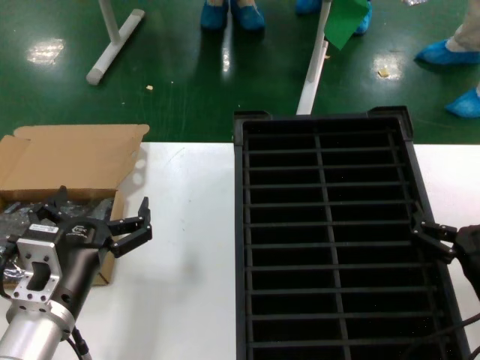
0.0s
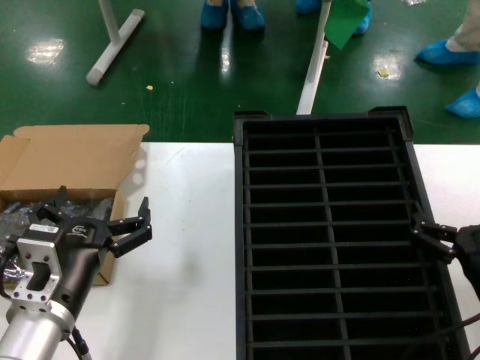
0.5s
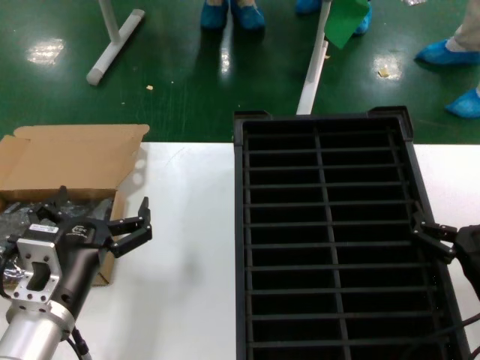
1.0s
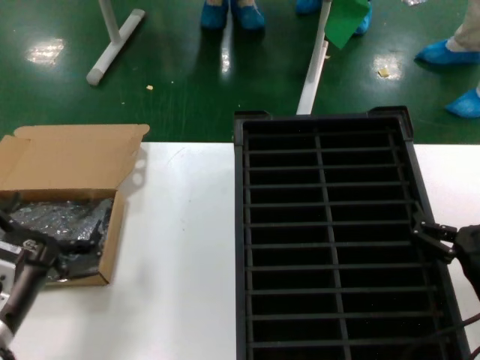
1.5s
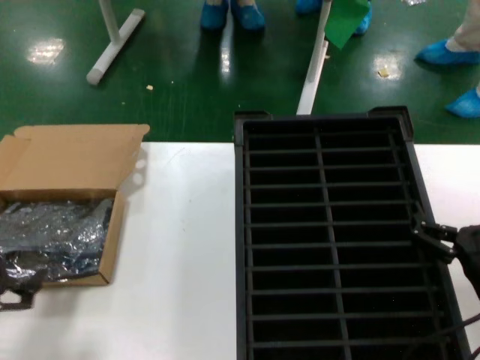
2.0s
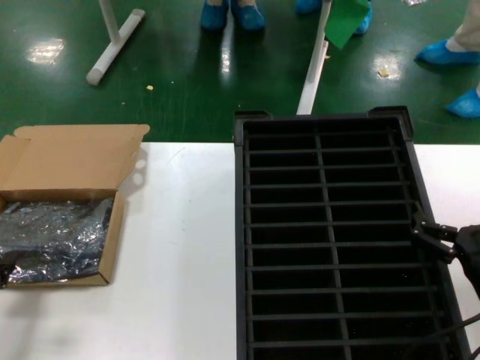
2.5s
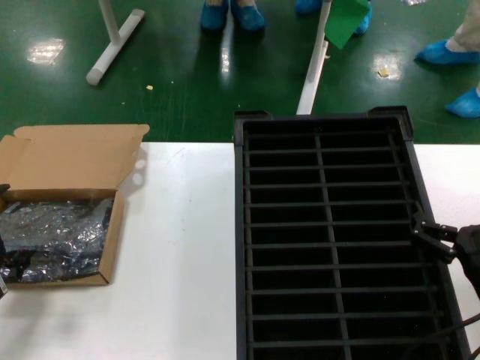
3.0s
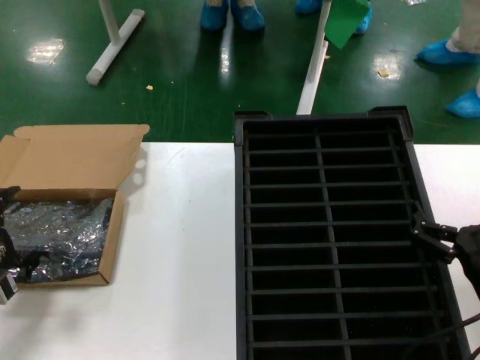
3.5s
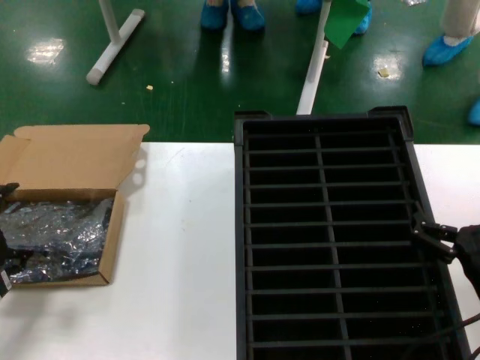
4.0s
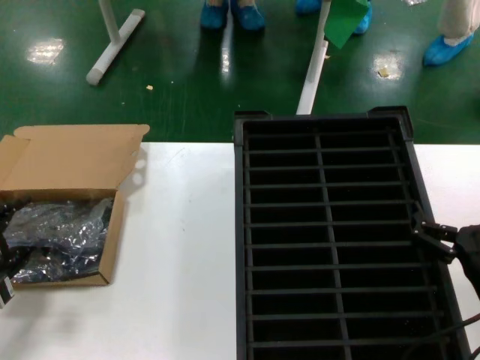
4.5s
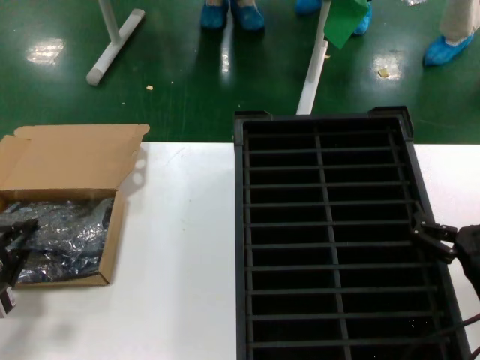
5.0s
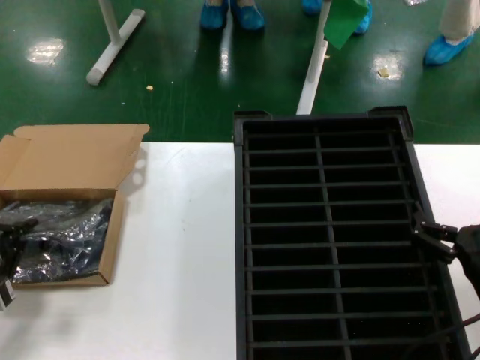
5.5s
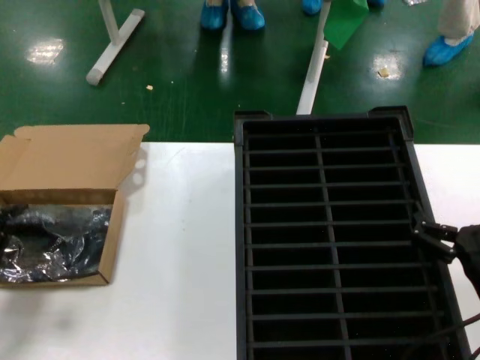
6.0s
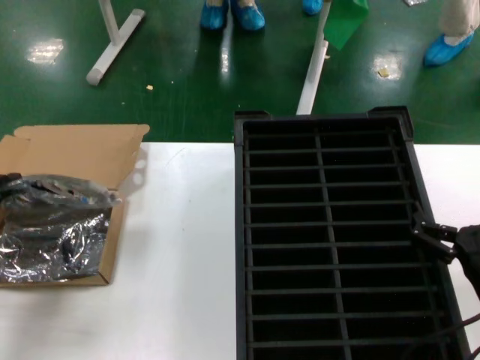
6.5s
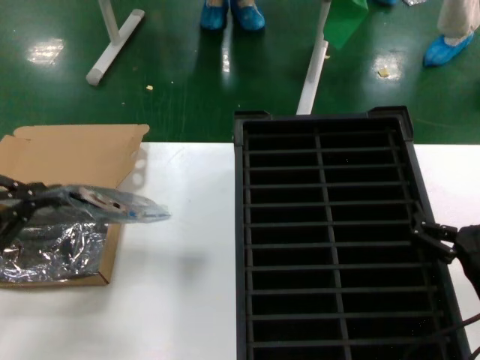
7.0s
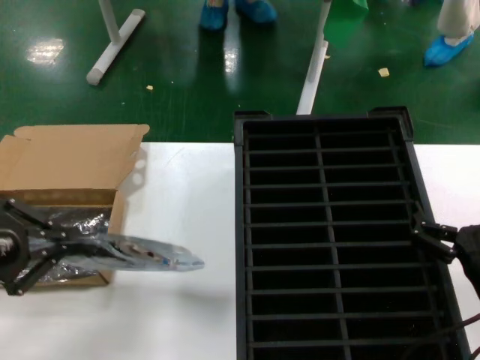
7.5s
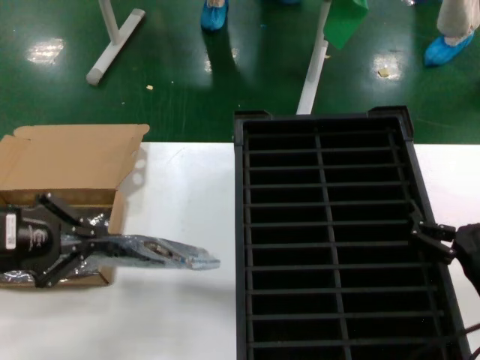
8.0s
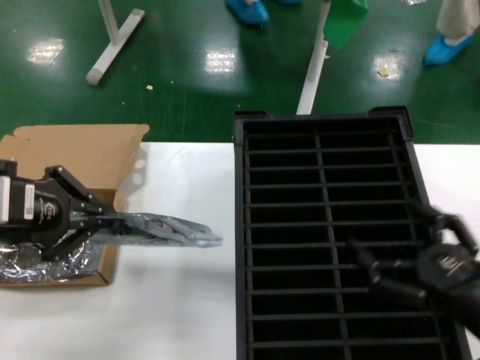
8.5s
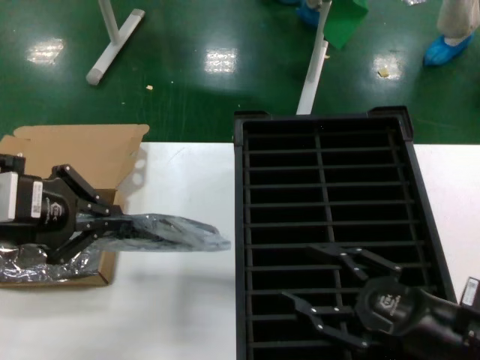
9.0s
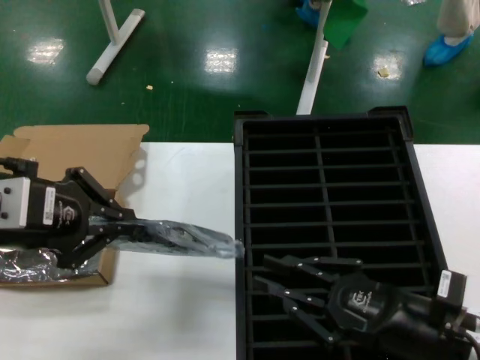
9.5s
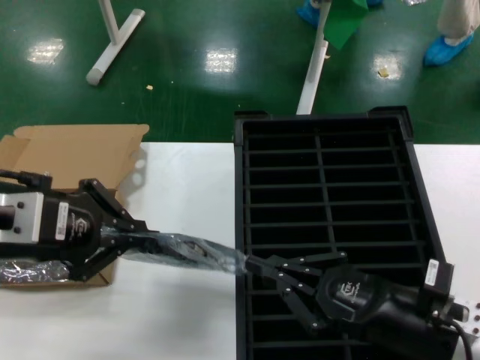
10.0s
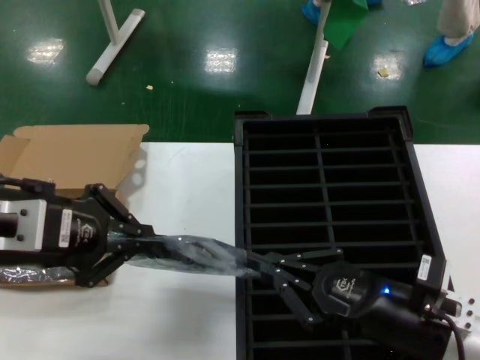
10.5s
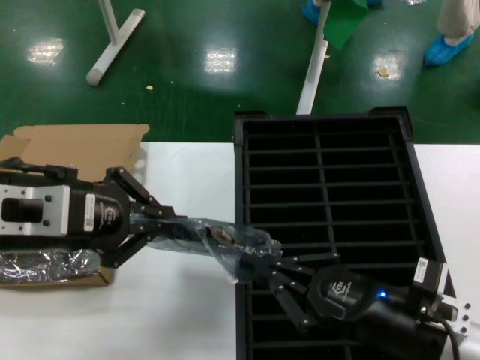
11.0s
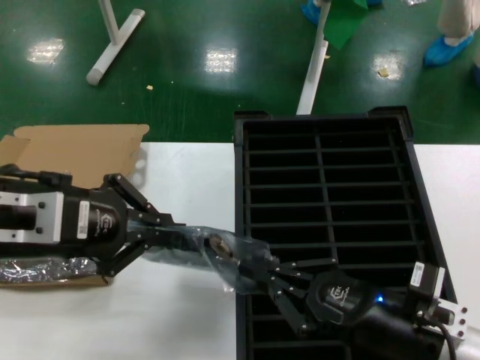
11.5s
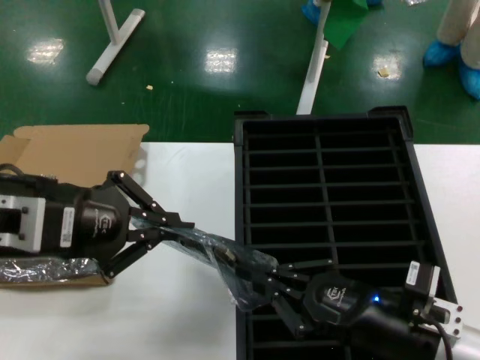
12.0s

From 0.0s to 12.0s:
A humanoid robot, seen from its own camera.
Task of the whole recording: take out graphics card from box remove packaging put into black container.
Step, from 0.0s to 5.0s: Grasp the bag.
Step, from 5.5s to 7.5s: Lift the bag.
From 0.0s to 2.0s: The left hand is displaced to the left by about 15 cm.
From 2.0s to 4.0s: The left hand travels forward by roughly 10 cm.
From 4.0s to 6.0s: The hands move only a little.
From 6.0s to 8.0s: The left hand moves upward and to the right, approximately 25 cm.
From 8.0s to 10.0s: The left hand moves to the right, some 5 cm.
From 10.0s to 12.0s: The hands move only a little.

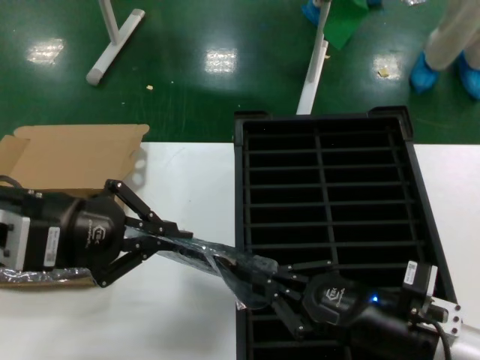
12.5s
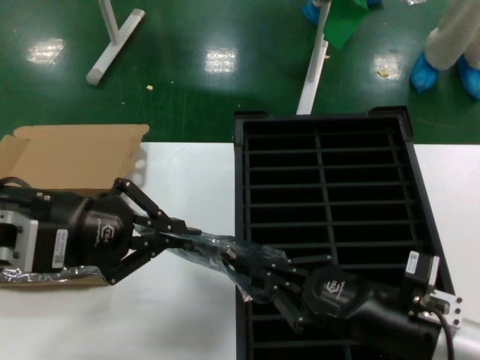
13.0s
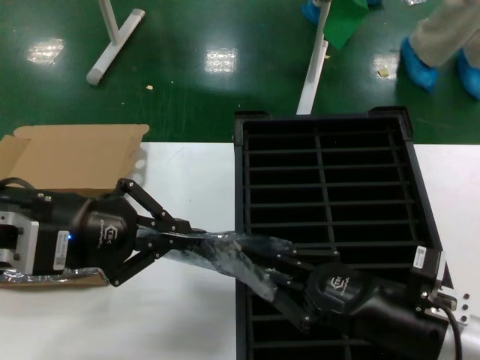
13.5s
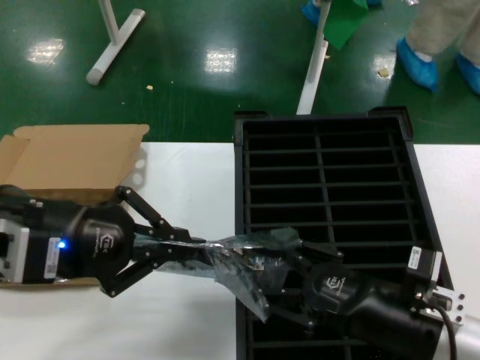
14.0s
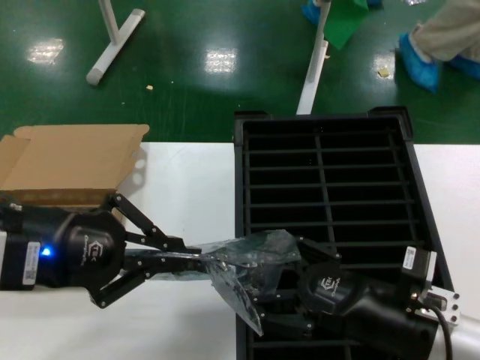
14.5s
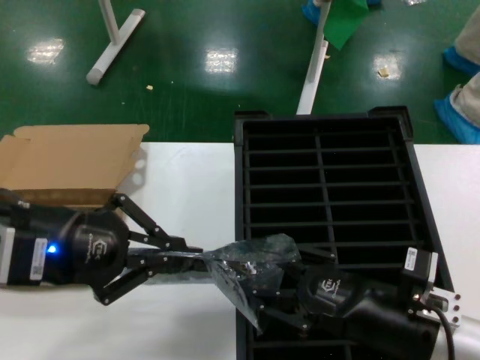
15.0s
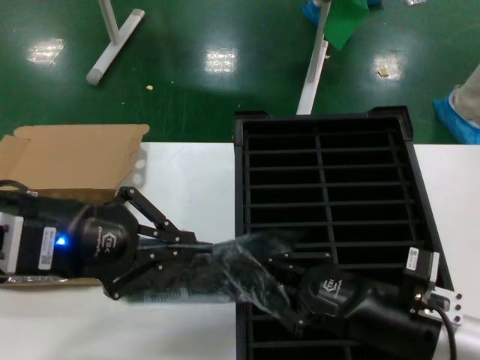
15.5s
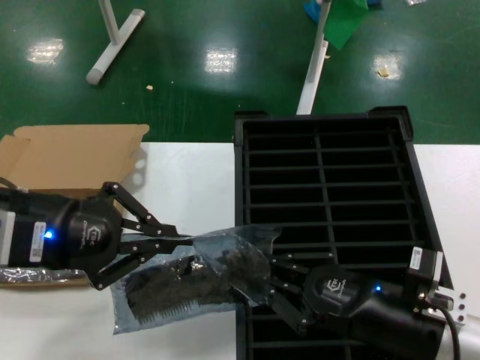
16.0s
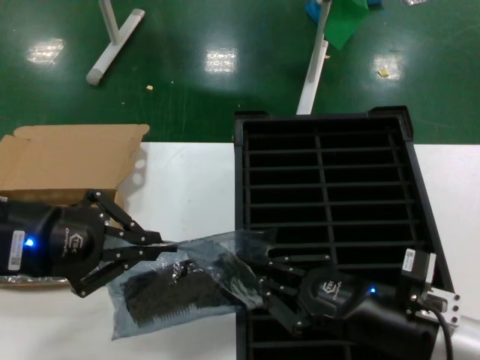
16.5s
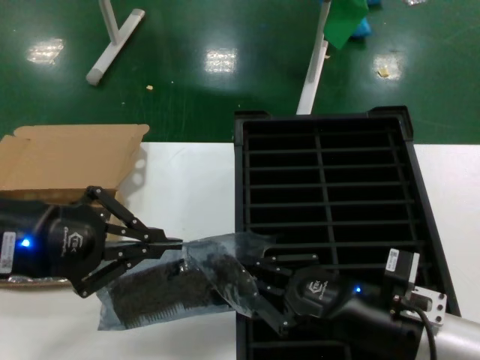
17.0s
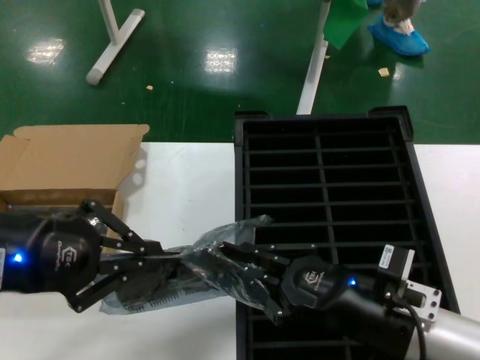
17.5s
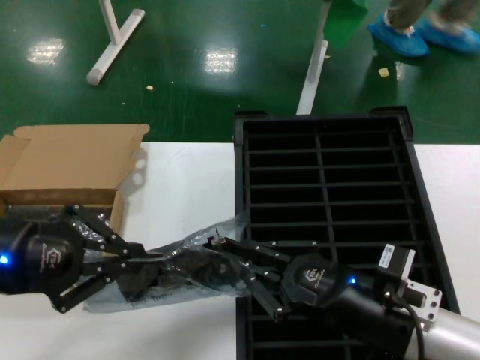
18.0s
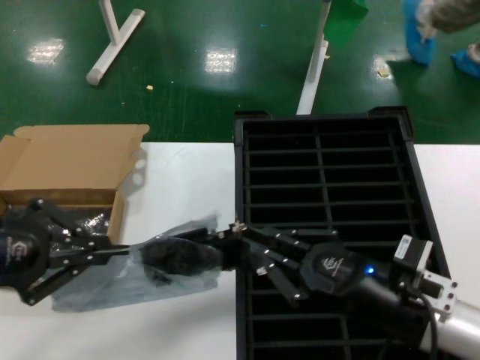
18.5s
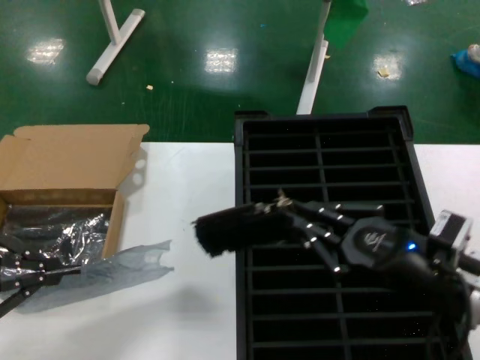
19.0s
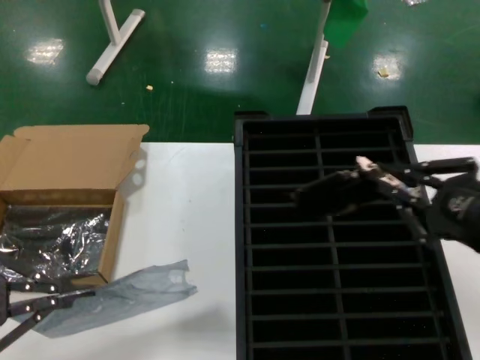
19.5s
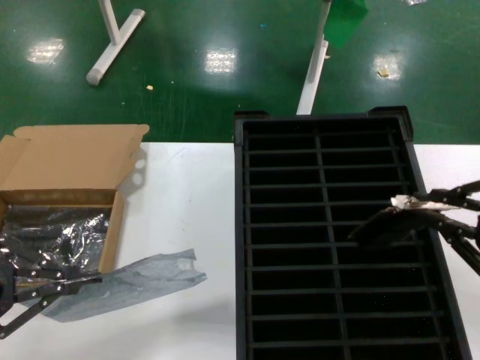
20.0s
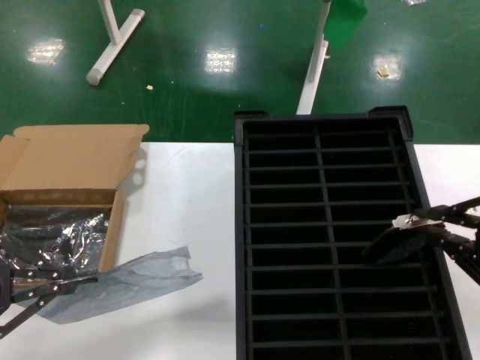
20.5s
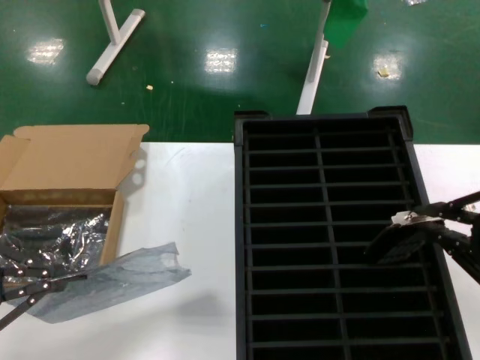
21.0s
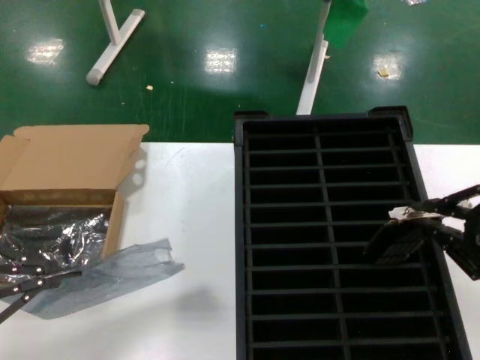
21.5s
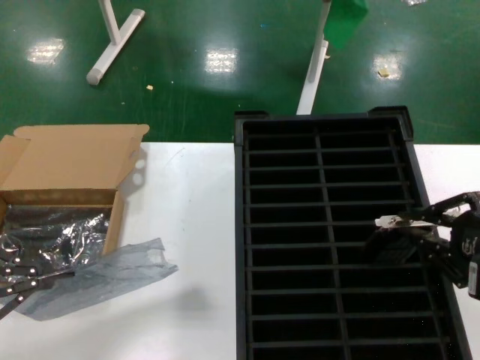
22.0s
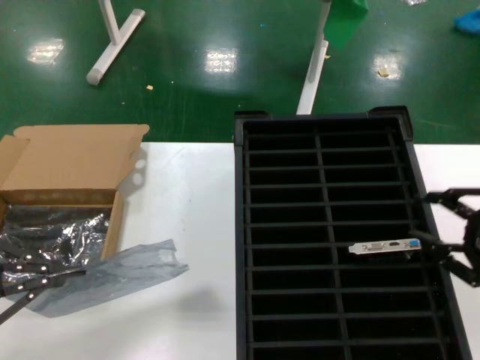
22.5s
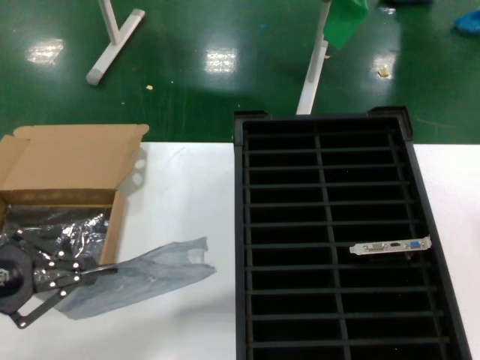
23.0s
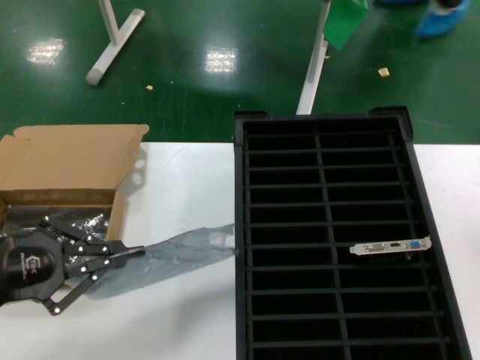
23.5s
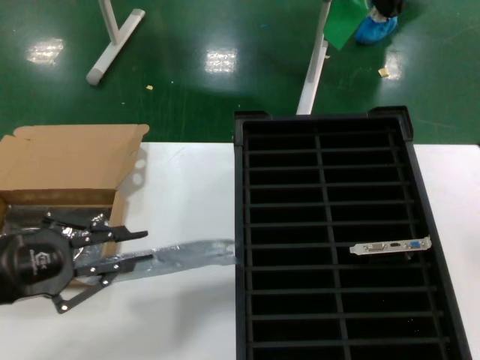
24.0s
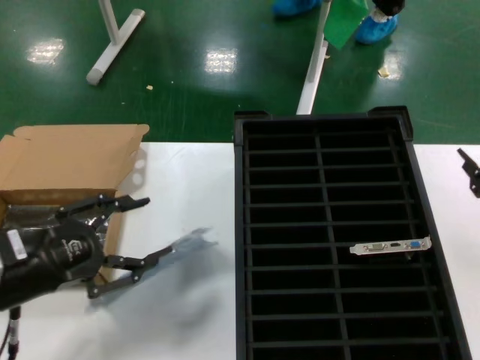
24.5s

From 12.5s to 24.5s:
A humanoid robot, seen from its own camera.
Task of the whole recording: take out graphics card from box remove packaging put into black container.
Step, from 12.5s to 18.5s: Take out the hard disk of the bag.
Step, from 19.0s to 22.5s: Place the hard disk in the hard disk enclosure.
From 12.5s to 16.5s: The hands make only small movements.
From 16.5s to 18.5s: The left hand travels to the left by some 5 cm.
From 18.5s to 20.5s: The right hand is displaced upward, to the right and backward by about 20 cm, while the left hand travels downward and to the left by some 15 cm.
From 20.5s to 22.5s: The hands make only small movements.
From 22.5s to 24.5s: The left hand shifts approximately 15 cm to the right. The right hand moves to the right, about 5 cm.

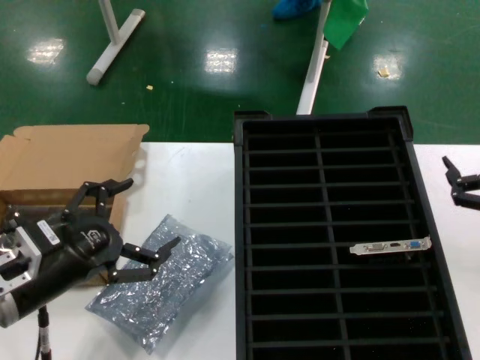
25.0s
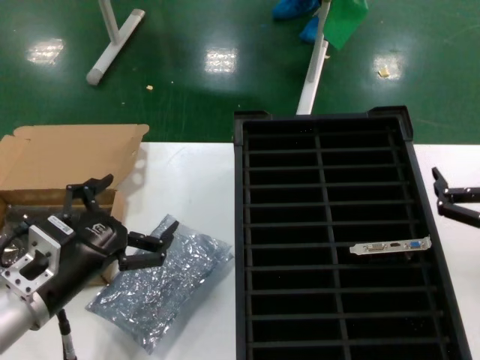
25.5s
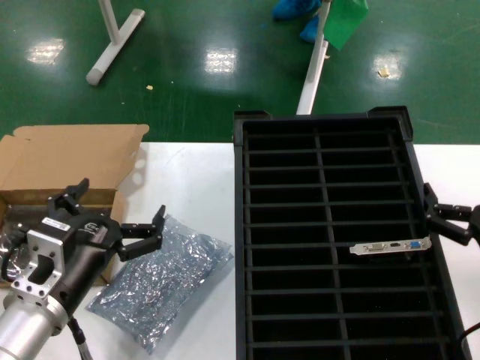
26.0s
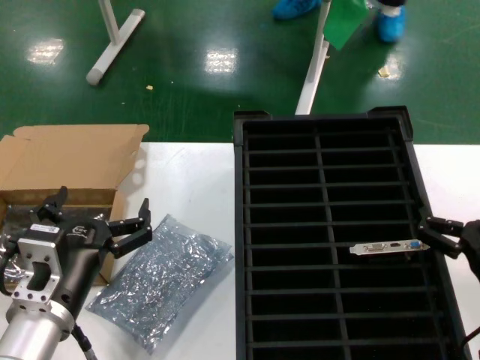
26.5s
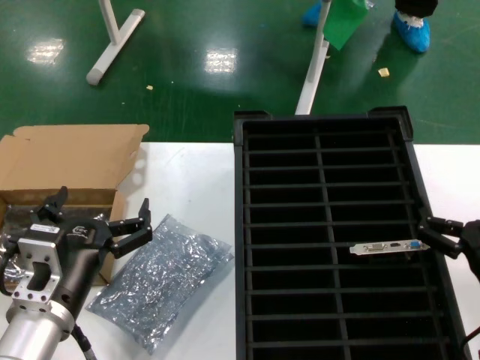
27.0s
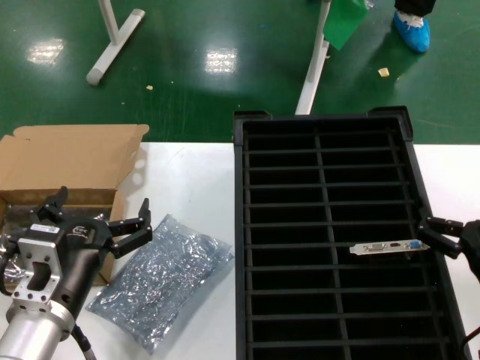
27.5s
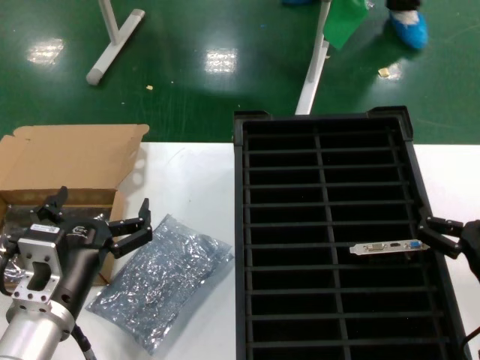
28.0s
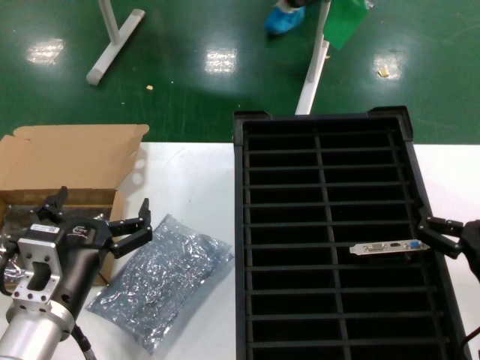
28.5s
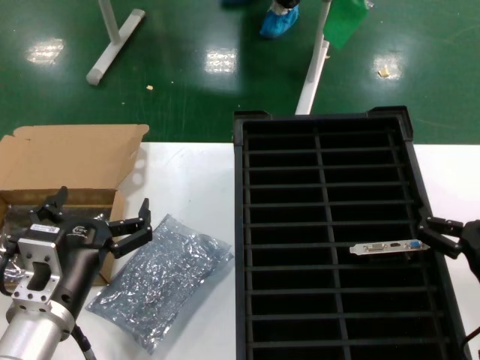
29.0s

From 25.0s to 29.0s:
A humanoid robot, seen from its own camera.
Task of the whole recording: take out graphics card from box remove packaging put into black container.
From 25.0s to 27.0s: The left hand goes about 10 cm to the right and downward; the right hand travels downward and to the left by roughly 10 cm.
From 27.0s to 29.0s: Both hands stay about where they are.
